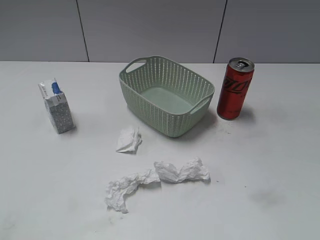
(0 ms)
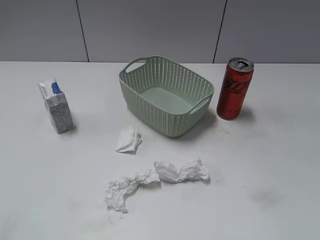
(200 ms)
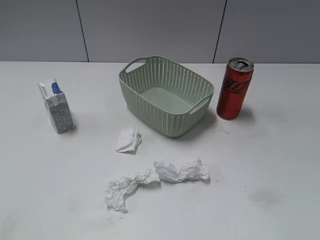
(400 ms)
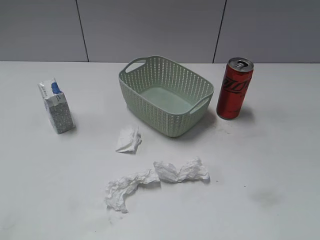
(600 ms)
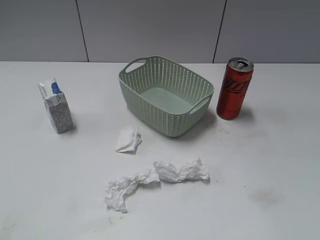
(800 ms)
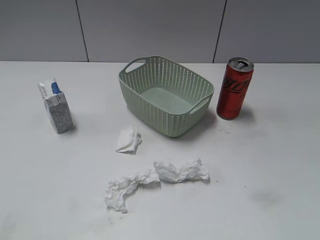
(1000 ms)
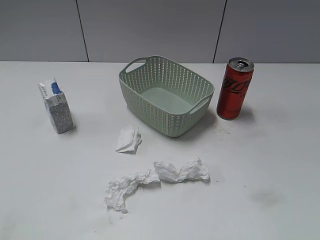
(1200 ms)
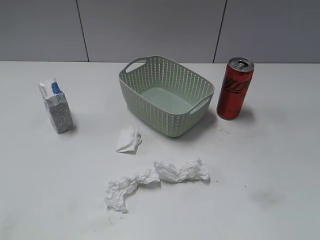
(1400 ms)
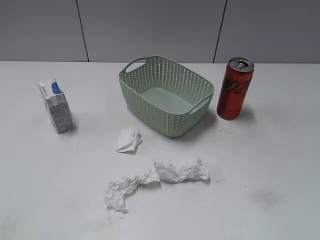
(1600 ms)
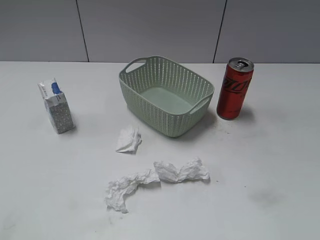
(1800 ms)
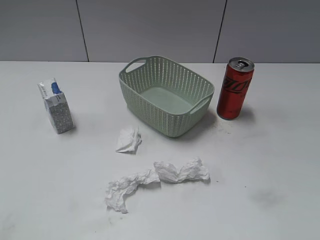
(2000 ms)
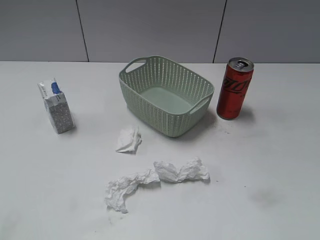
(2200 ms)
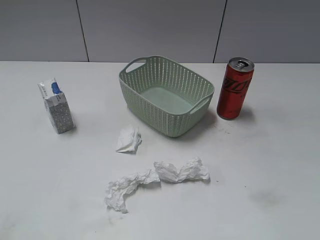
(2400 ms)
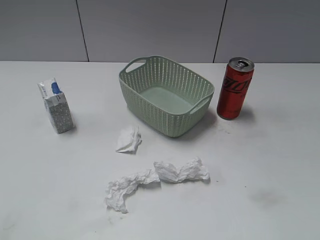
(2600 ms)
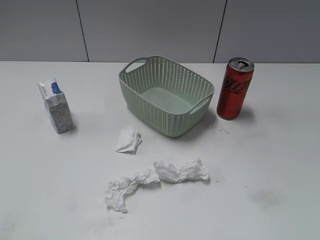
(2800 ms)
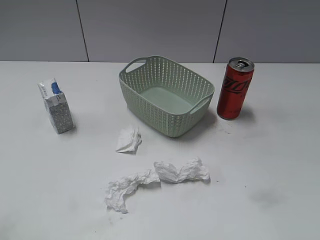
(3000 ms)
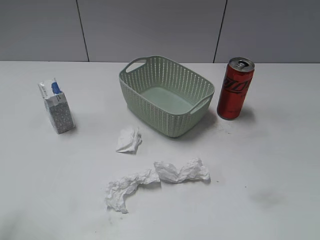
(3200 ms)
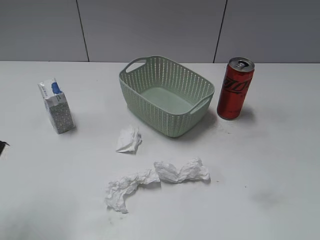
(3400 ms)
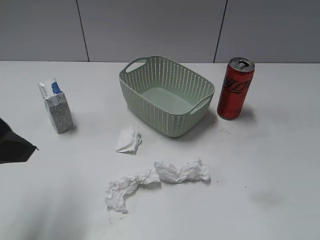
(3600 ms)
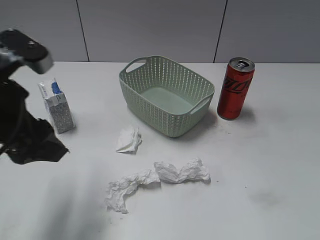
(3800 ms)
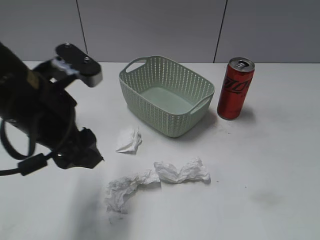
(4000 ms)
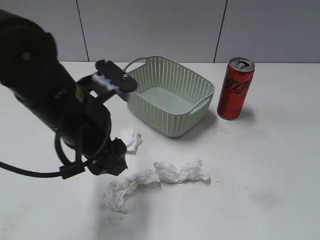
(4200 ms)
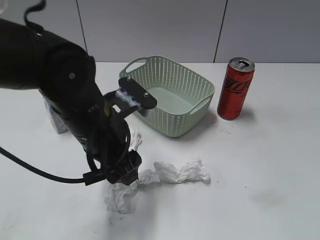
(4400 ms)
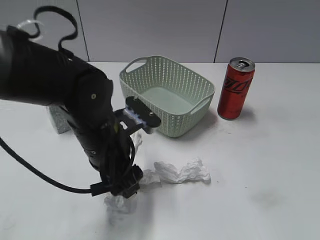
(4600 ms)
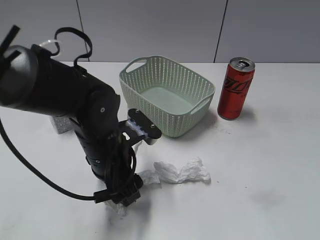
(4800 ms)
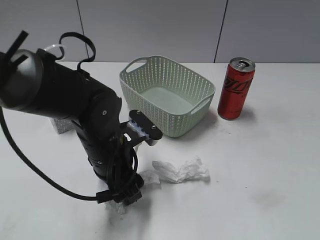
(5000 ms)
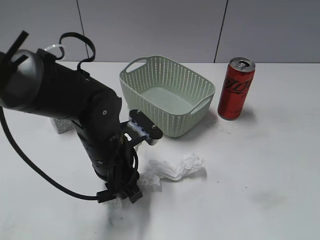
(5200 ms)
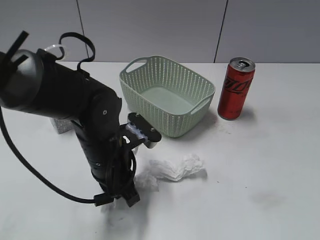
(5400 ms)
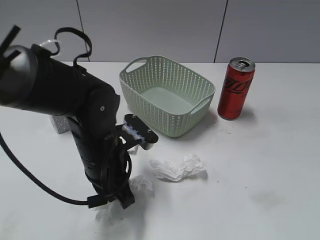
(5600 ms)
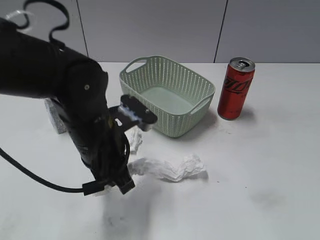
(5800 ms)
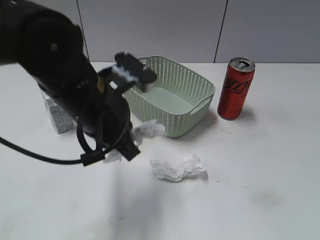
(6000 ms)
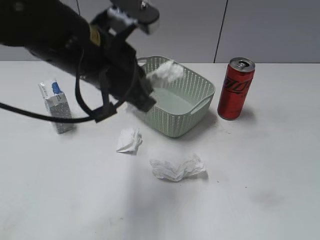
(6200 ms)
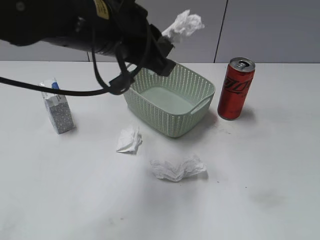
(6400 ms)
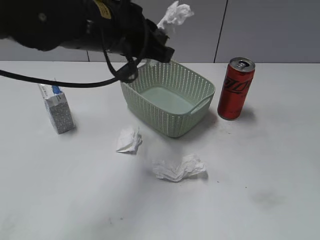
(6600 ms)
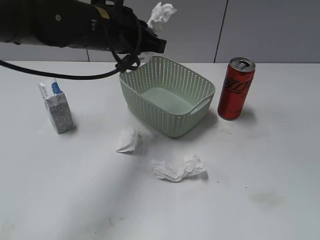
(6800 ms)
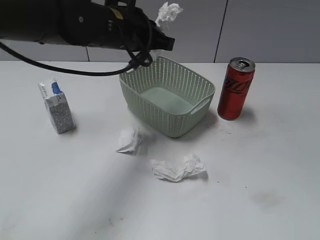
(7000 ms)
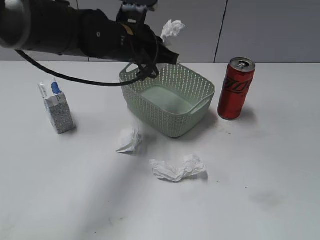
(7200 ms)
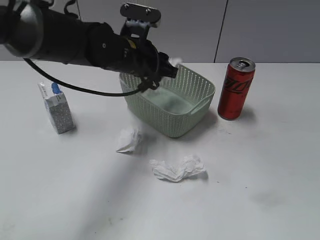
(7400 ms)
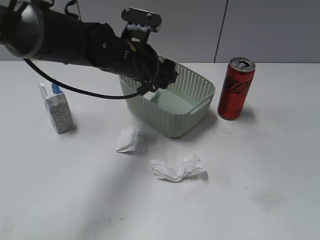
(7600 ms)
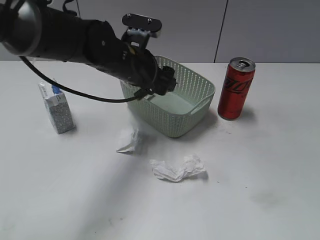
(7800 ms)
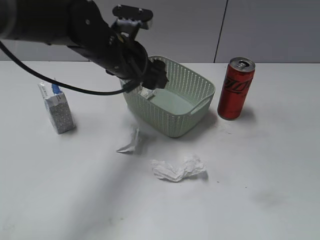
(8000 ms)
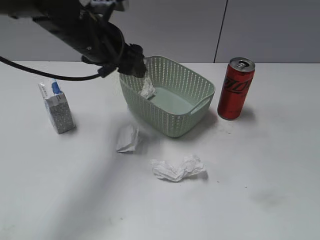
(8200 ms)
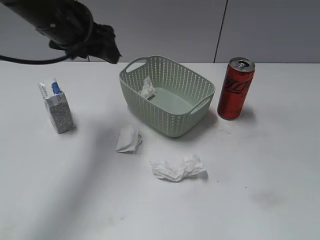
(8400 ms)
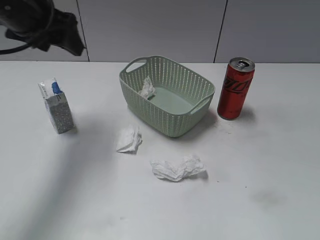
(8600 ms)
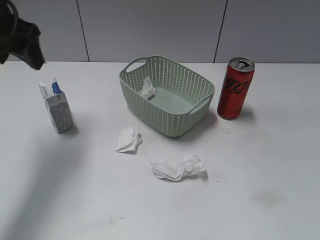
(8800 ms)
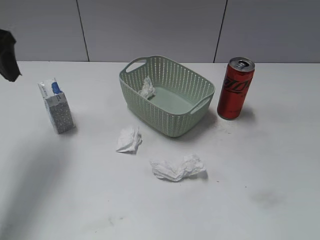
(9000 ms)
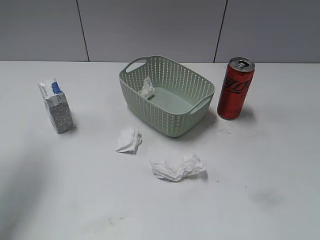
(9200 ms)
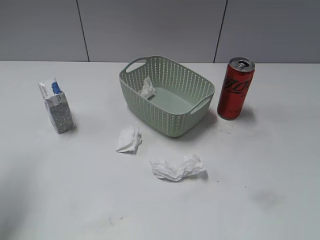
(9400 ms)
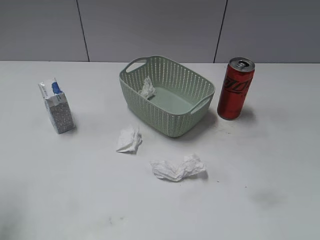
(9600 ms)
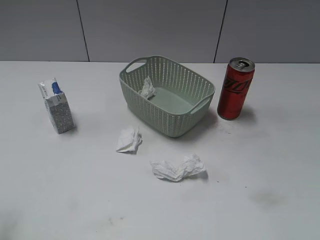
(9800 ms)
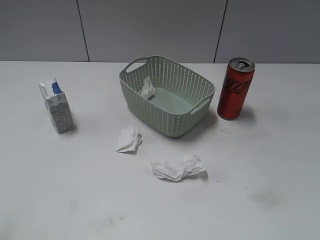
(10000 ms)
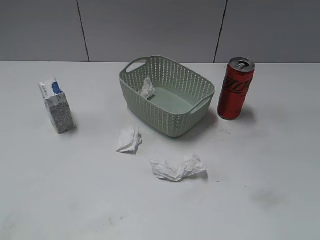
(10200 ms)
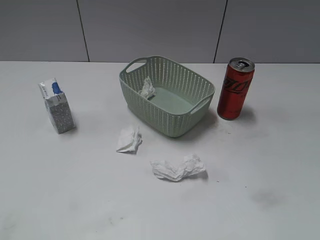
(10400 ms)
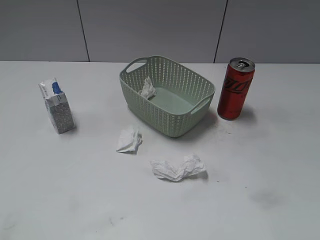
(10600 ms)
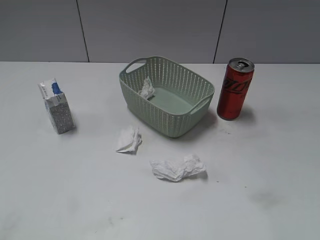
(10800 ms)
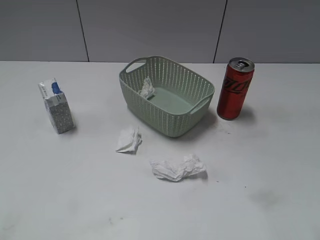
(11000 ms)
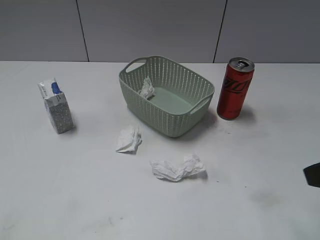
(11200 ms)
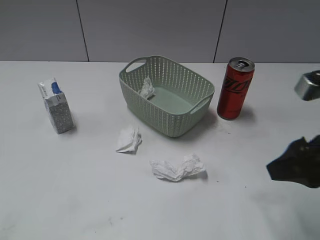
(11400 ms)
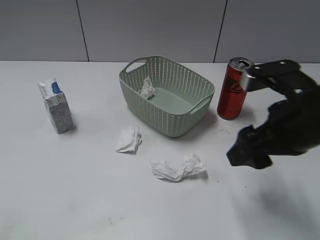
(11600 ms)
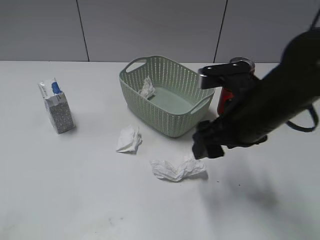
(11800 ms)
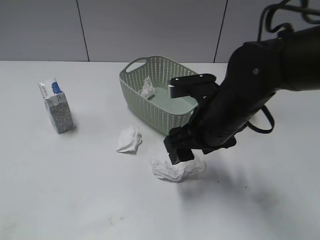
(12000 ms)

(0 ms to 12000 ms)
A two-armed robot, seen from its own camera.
Step, 3400 ms - 5400 ms: Grasp the waste paper with left gripper.
Step, 5600 ms - 7400 ms: Place the waste paper in the basket with left gripper.
3000 ms - 4400 ms: The left gripper goes approximately 30 cm to the right, forward and downward.
4400 ms - 6000 ms: The left gripper moves roughly 5 cm downward and comes back, and closes up.
6000 ms - 7600 ms: The left gripper travels forward by roughly 15 cm, and opens.
7600 ms - 9000 ms: The left gripper heads to the left and upward, covering approximately 25 cm.
9000 ms - 10400 ms: The left gripper moves backward, some 30 cm.
10400 ms - 12000 ms: The right gripper goes roughly 30 cm forward, to the left and downward.

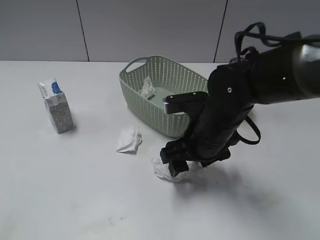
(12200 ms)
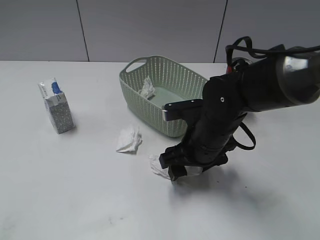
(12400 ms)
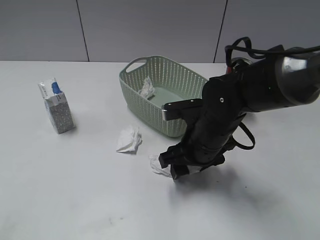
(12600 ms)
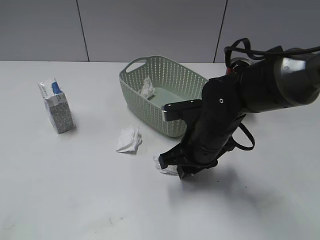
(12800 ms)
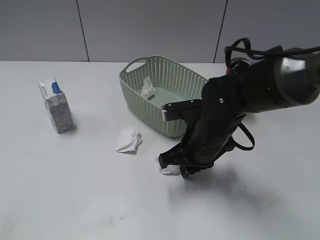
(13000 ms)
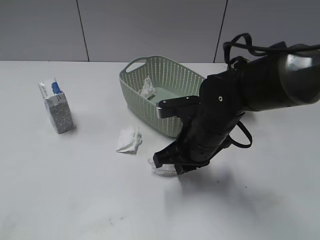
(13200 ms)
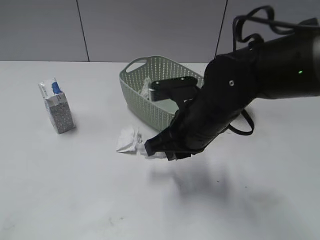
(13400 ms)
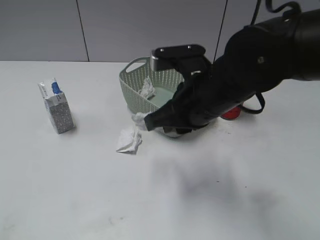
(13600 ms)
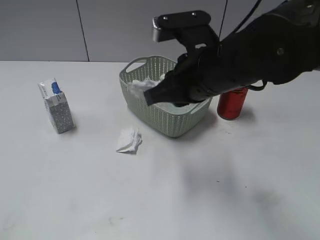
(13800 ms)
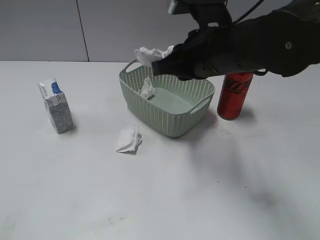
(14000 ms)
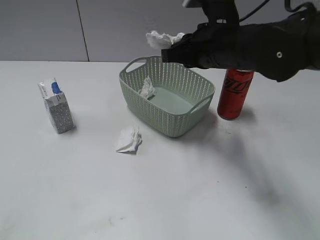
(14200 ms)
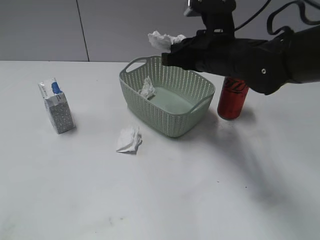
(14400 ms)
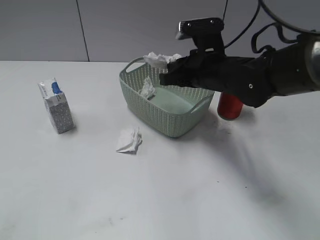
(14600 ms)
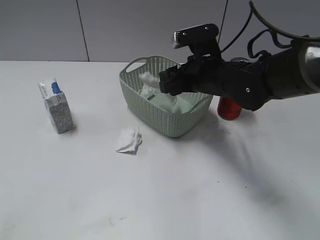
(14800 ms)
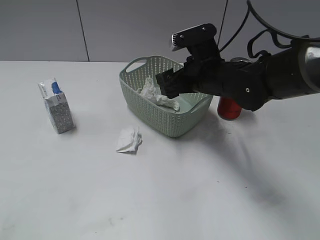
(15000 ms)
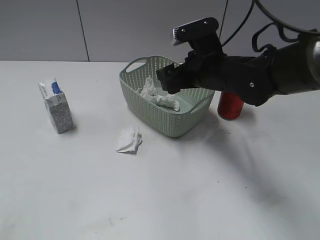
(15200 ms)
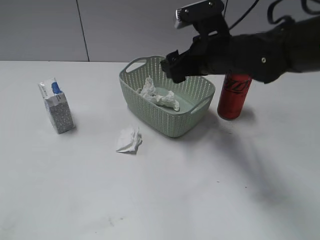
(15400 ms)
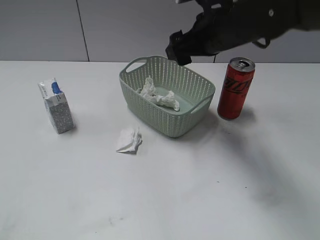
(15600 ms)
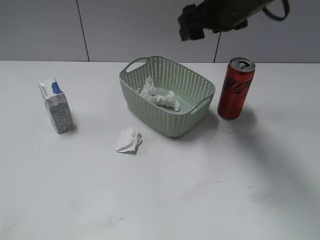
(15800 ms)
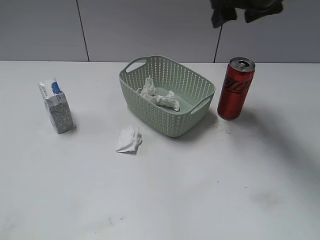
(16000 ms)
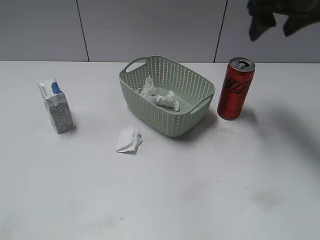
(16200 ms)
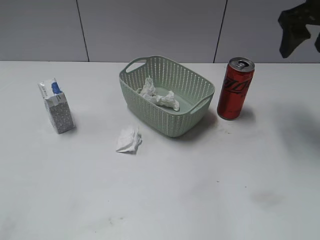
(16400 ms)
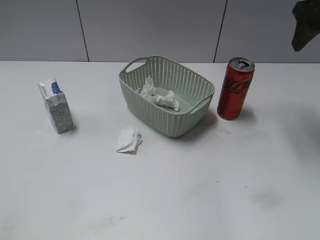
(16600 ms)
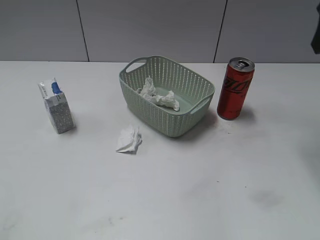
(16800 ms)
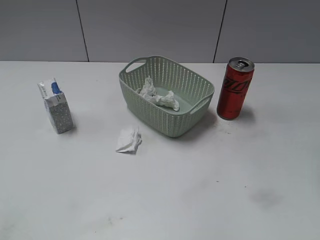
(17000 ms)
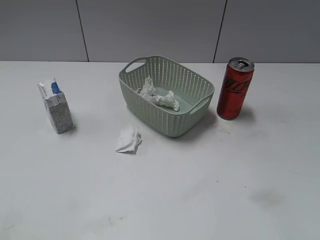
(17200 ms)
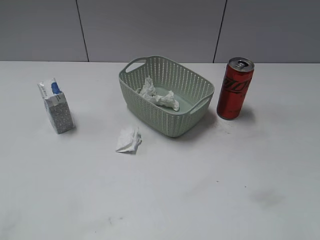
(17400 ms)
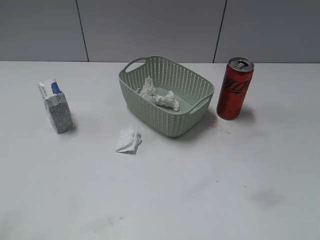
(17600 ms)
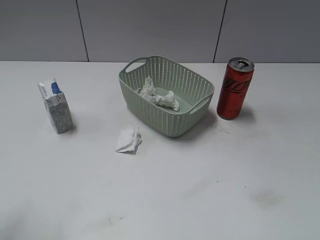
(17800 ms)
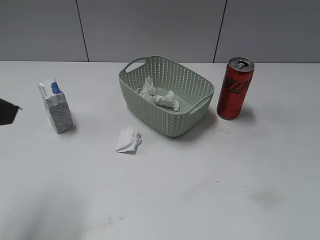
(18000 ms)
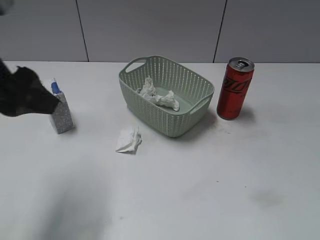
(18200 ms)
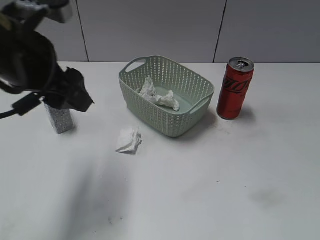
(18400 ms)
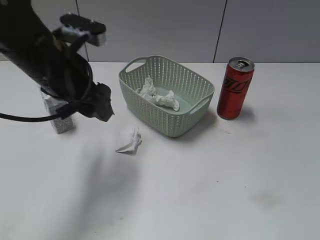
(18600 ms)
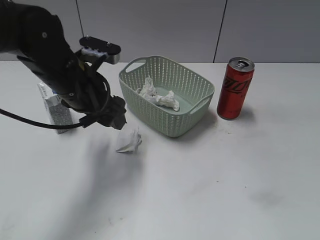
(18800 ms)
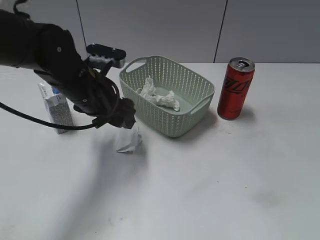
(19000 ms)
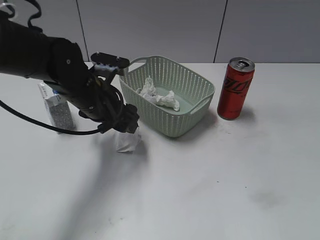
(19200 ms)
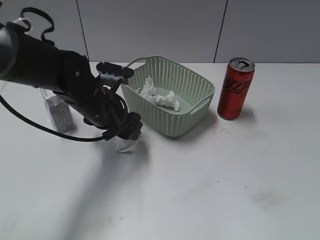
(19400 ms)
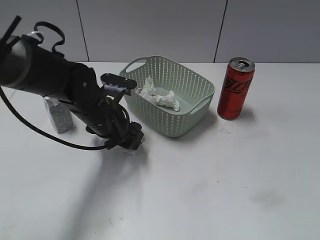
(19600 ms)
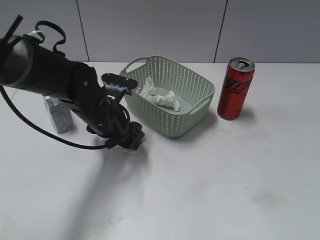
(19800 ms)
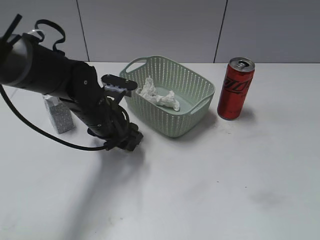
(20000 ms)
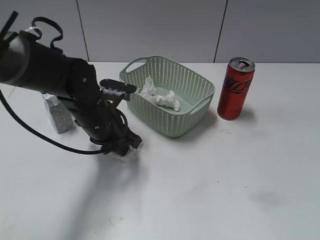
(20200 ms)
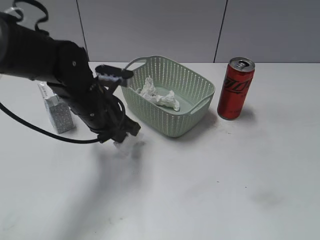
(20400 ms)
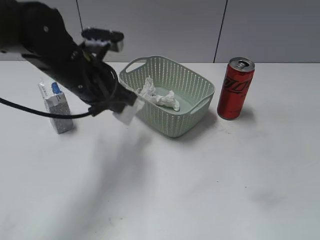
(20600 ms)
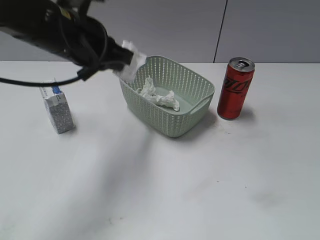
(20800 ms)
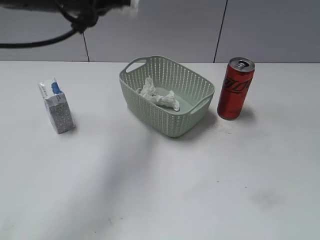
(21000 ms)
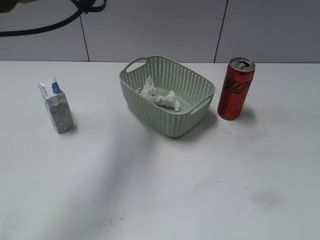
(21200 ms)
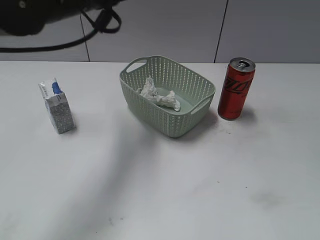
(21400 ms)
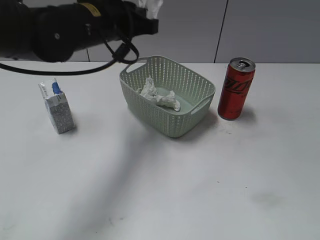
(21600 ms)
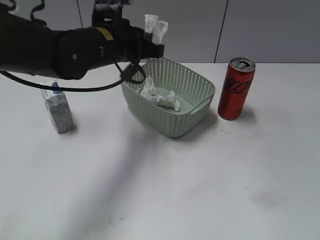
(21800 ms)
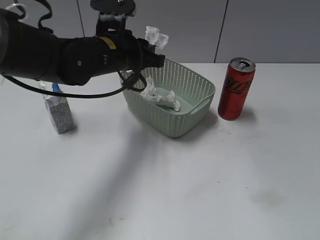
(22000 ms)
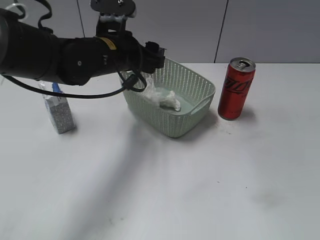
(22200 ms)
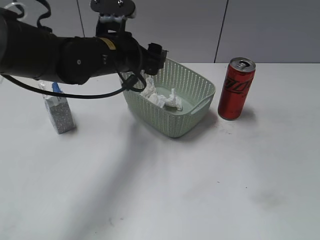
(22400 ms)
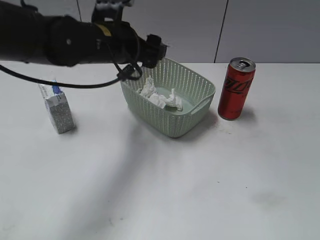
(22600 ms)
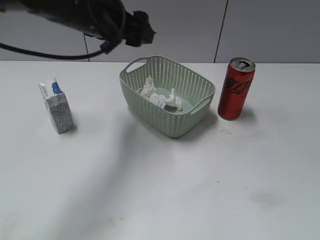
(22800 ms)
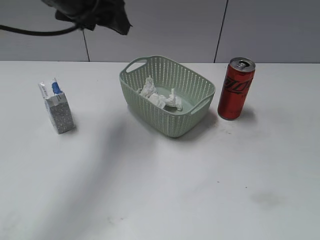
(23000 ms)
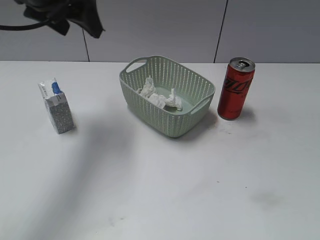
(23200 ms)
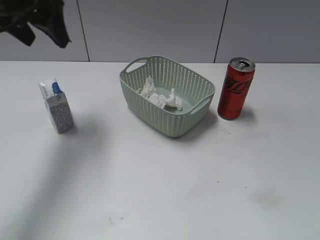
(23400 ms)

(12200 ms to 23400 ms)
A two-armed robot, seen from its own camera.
Step, 13400 ms - 15000 ms: Place the waste paper in the basket with right gripper.
Step, 15200 ms - 20400 ms: Grasp the waste paper with left gripper.
Step, 20600 ms - 22400 ms: Place the waste paper in the basket with left gripper.
12200 ms - 13800 ms: The right gripper moves upward, about 10 cm, and closes up.
13800 ms - 15400 ms: The right gripper is displaced forward by about 10 cm, and opens.
15400 ms - 17000 ms: The right gripper shifts some 25 cm to the right, upward and backward.
17000 ms - 18600 ms: The right gripper heads backward and downward, covering approximately 25 cm. The left gripper goes some 35 cm forward and to the right.
18600 ms - 20200 ms: The left gripper is displaced downward by some 15 cm, and closes.
20200 ms - 21800 ms: The left gripper heads upward, covering about 10 cm.
21800 ms - 23400 ms: The left gripper heads to the left and upward, covering approximately 15 cm, and opens its fingers.
